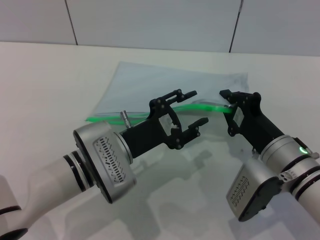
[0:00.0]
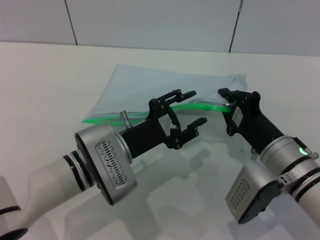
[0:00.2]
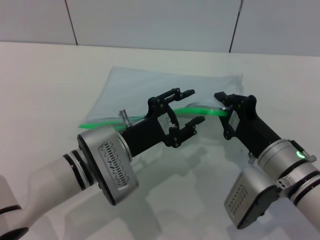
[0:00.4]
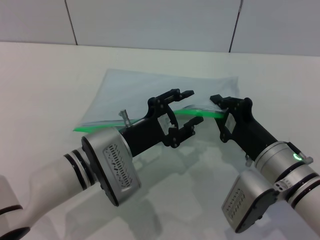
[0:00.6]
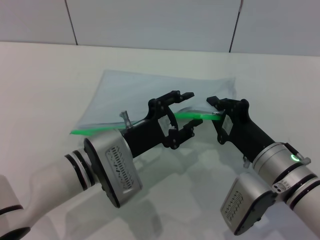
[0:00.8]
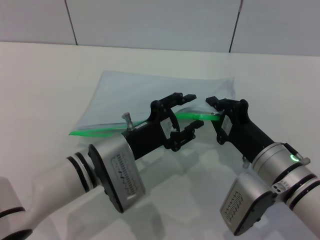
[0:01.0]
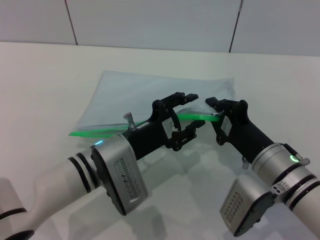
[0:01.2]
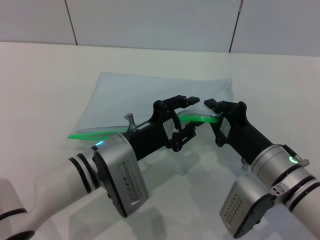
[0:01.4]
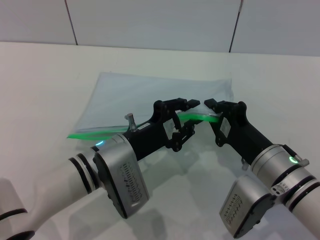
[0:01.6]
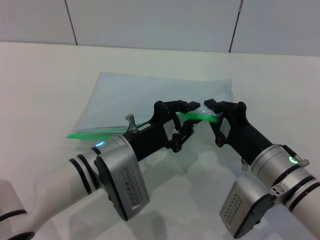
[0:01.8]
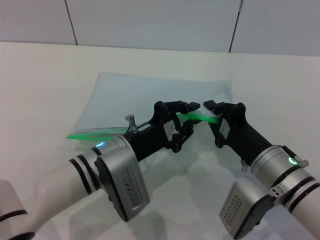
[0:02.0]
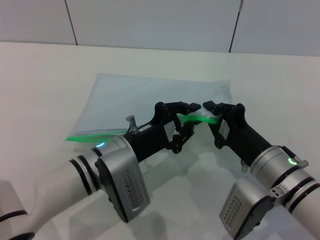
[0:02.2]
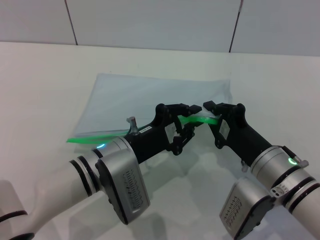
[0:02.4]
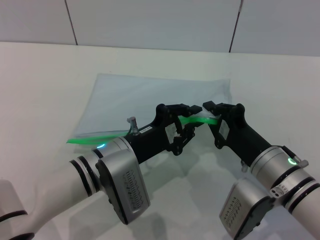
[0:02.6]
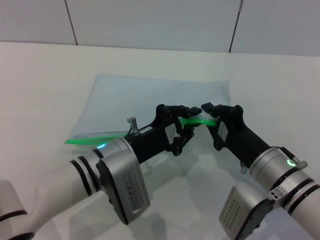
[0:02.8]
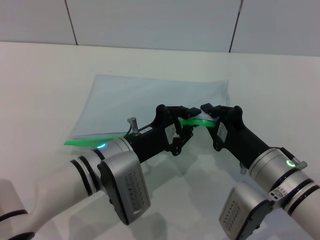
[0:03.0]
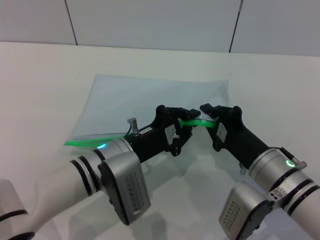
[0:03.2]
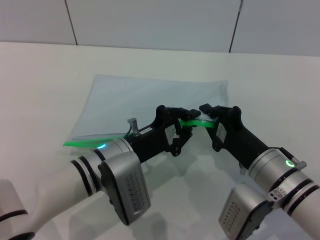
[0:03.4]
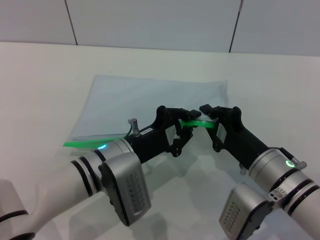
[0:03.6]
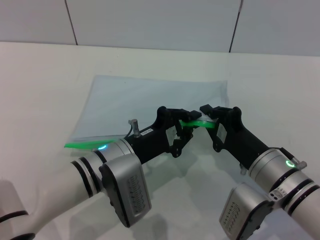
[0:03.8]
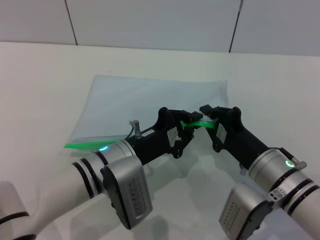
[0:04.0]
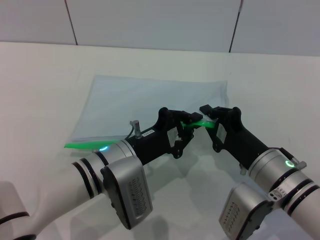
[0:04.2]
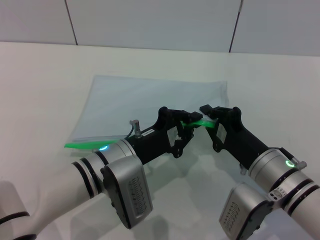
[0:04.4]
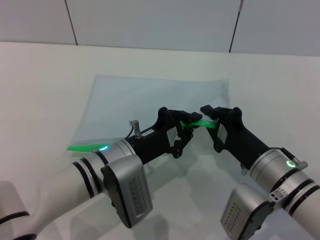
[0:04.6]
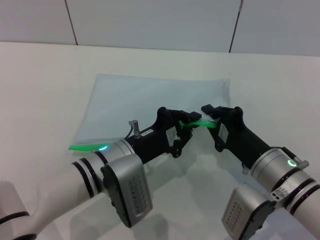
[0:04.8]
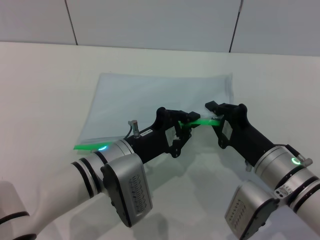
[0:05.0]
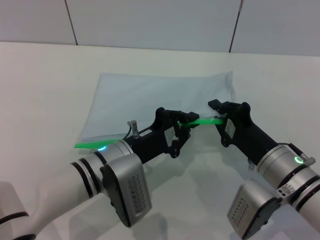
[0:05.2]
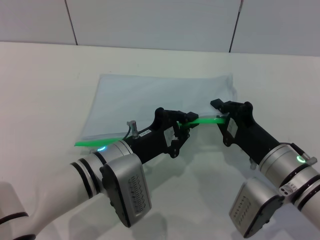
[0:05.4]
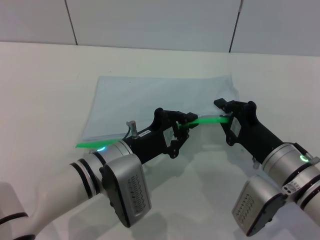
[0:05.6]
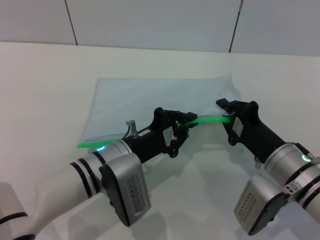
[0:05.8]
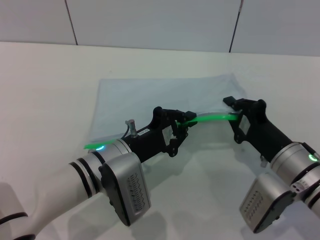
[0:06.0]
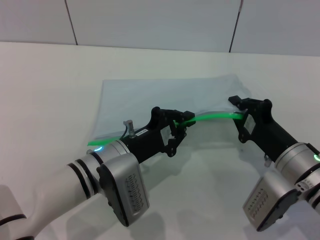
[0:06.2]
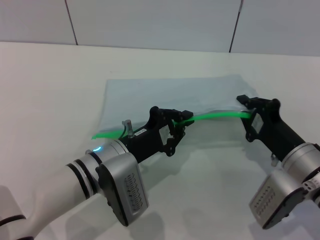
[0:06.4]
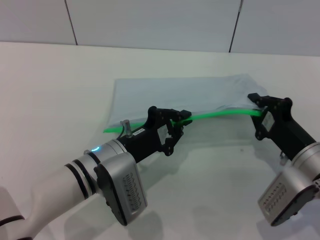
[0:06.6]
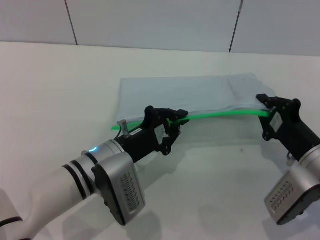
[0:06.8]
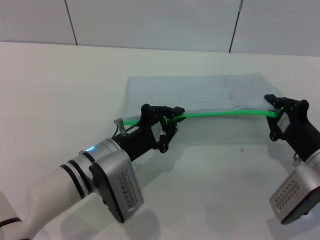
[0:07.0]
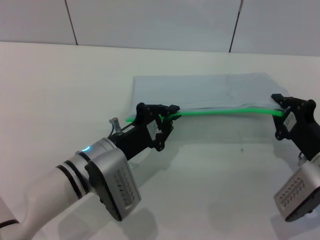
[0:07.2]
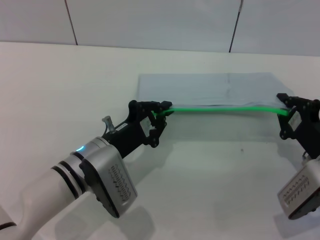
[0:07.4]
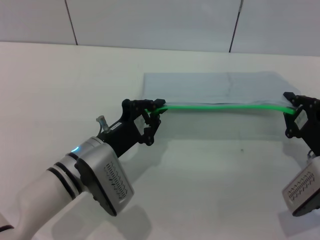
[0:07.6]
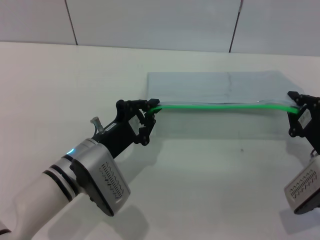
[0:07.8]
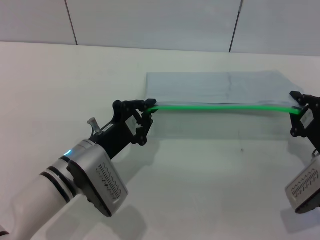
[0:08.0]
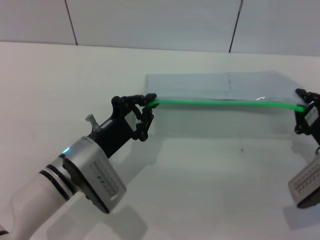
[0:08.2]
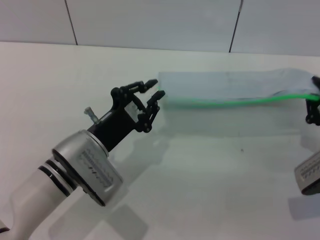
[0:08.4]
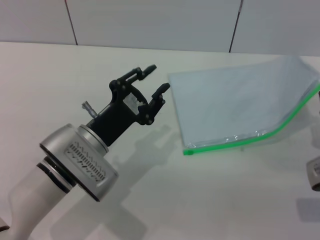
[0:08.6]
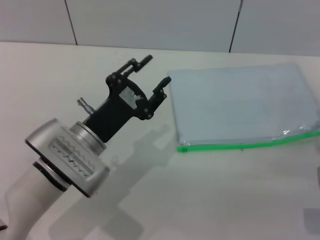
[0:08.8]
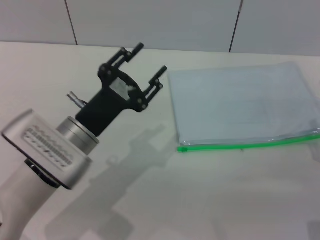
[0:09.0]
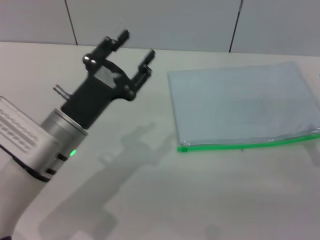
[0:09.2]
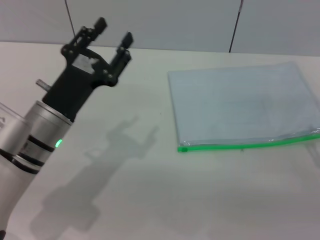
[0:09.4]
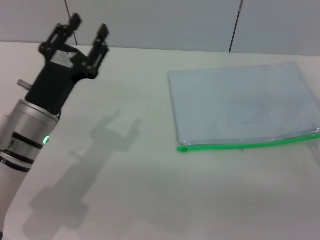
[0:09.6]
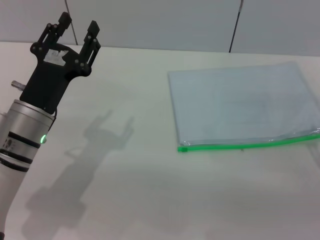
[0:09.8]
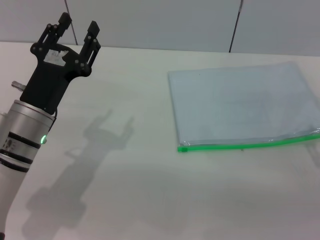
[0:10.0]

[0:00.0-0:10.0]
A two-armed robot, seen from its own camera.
Step, 0:00.0 to 0:08.4: Pulling up the zipper on the transparent plastic bag with the left gripper to close it.
0:01.4 to 0:02.8: The left gripper closes its fingers.
0:02.8 to 0:04.2: Neither gripper changes place.
0:04.2 to 0:05.8: There are only small adjustments of the grippers.
0:05.8 to 0:07.2: The right gripper heads to the right, covering approximately 5 cm.
0:08.6 to 0:10.0: The left gripper is displaced to the left by approximately 5 cm, and opens up, while the right gripper ends up roughly 5 cm from where it was, and opens up.
